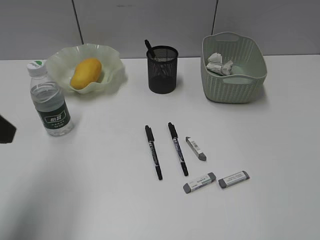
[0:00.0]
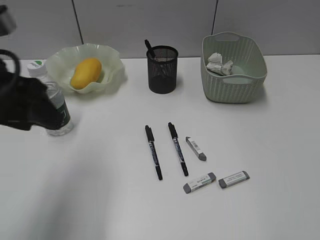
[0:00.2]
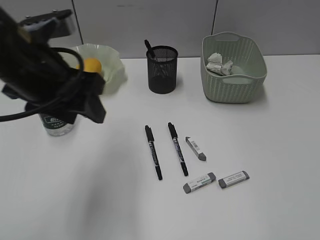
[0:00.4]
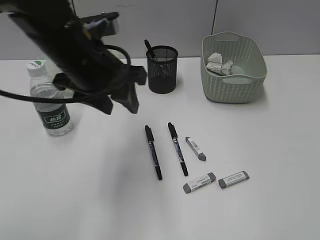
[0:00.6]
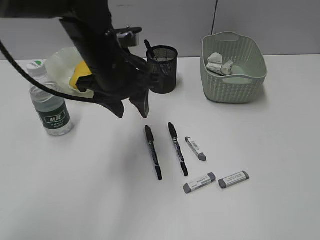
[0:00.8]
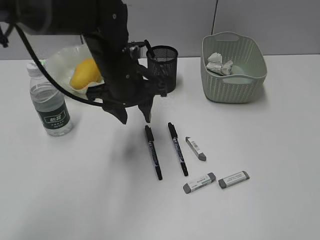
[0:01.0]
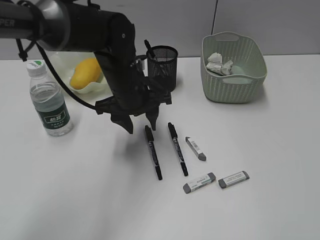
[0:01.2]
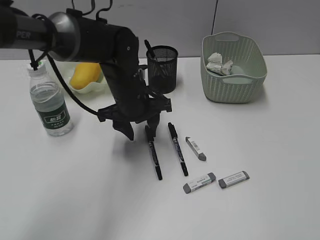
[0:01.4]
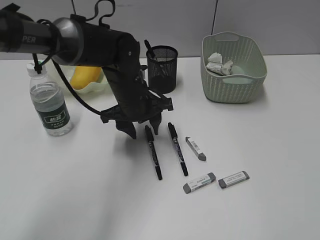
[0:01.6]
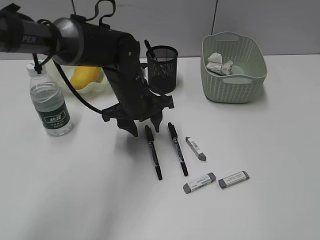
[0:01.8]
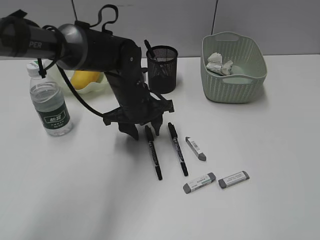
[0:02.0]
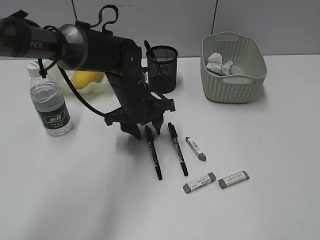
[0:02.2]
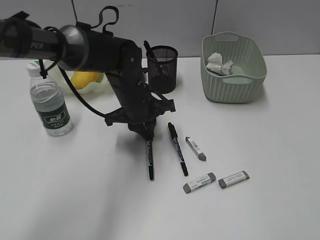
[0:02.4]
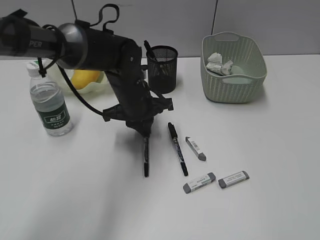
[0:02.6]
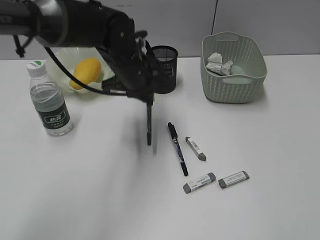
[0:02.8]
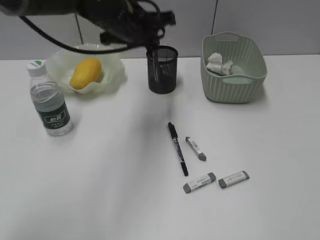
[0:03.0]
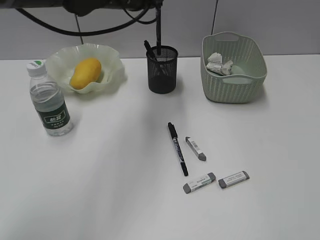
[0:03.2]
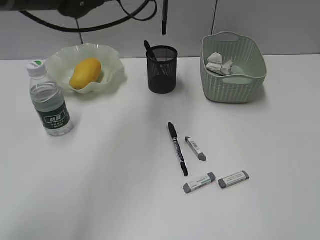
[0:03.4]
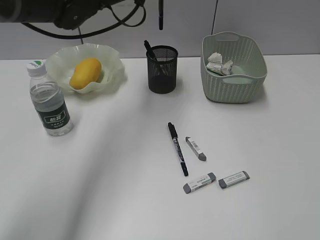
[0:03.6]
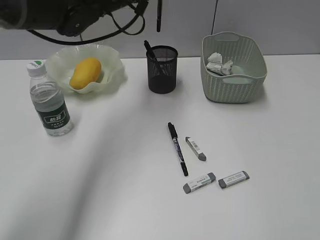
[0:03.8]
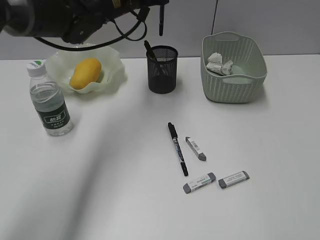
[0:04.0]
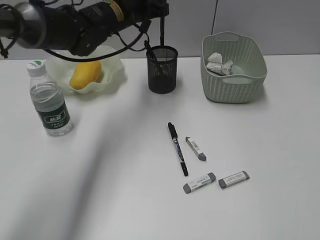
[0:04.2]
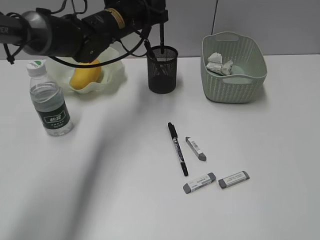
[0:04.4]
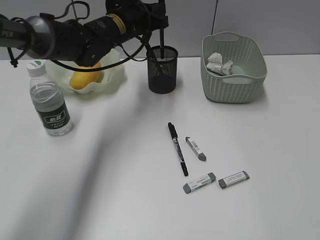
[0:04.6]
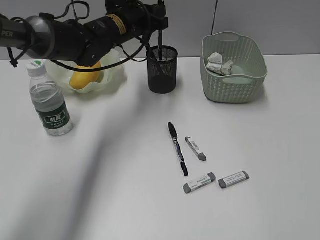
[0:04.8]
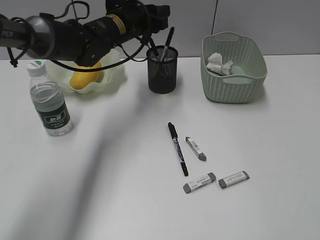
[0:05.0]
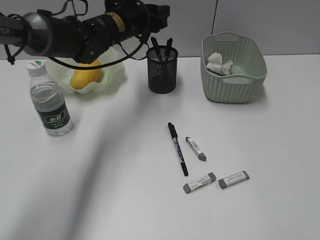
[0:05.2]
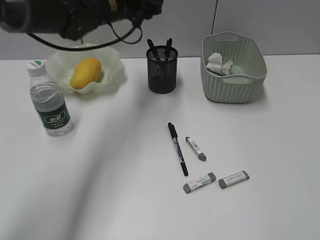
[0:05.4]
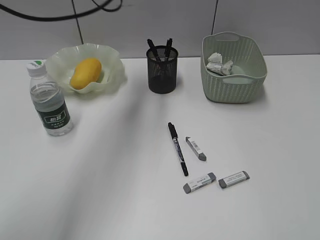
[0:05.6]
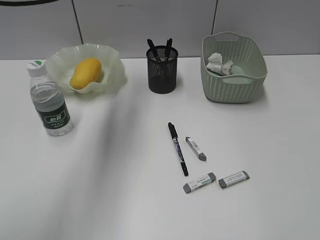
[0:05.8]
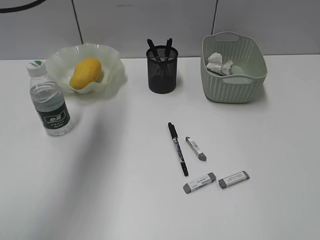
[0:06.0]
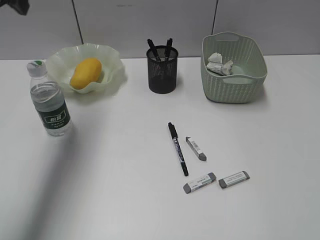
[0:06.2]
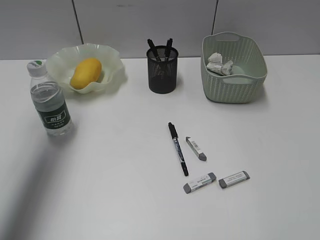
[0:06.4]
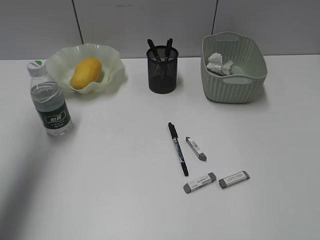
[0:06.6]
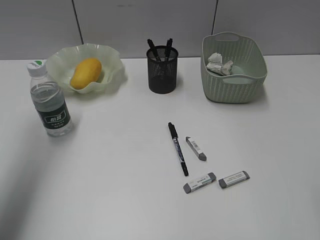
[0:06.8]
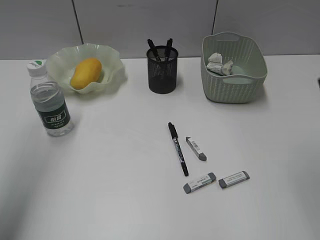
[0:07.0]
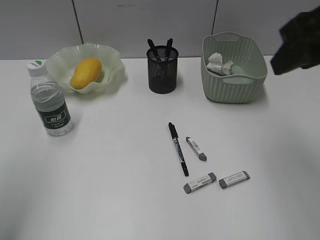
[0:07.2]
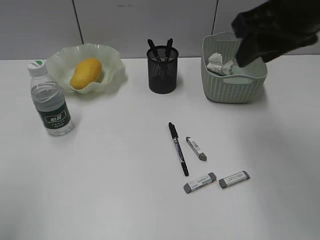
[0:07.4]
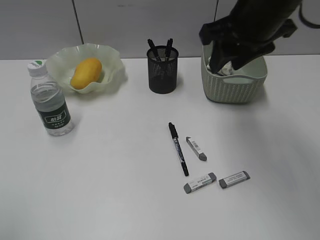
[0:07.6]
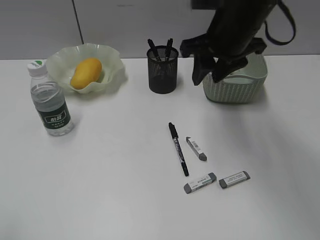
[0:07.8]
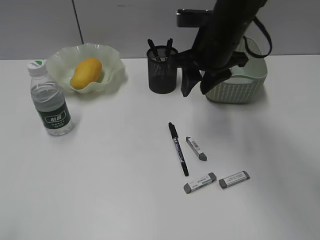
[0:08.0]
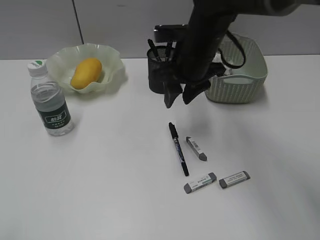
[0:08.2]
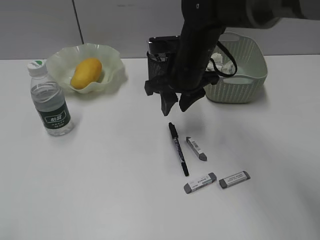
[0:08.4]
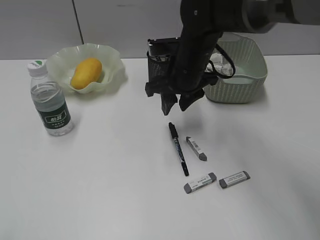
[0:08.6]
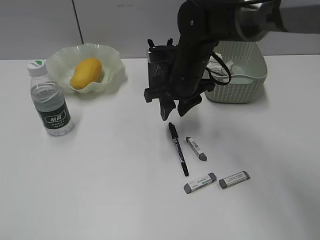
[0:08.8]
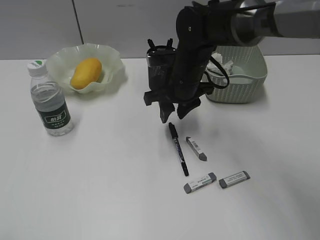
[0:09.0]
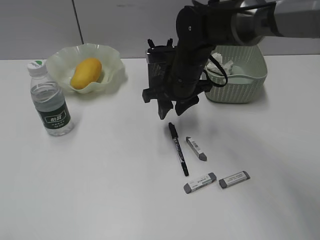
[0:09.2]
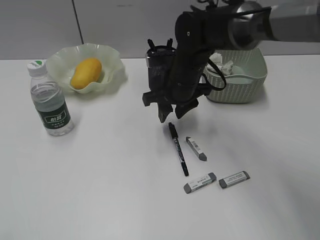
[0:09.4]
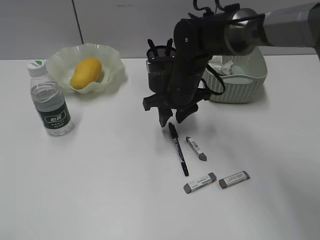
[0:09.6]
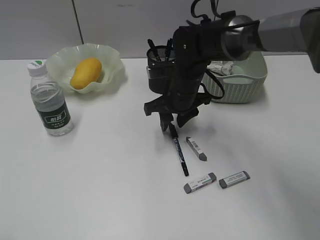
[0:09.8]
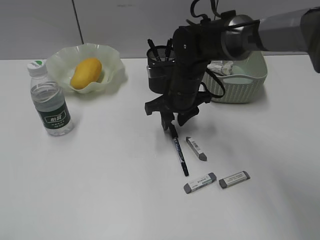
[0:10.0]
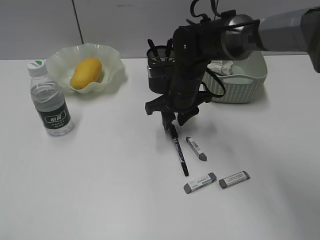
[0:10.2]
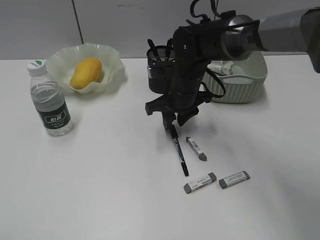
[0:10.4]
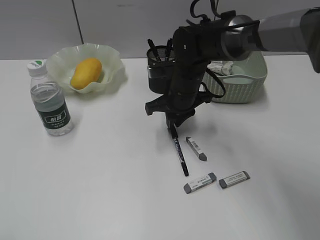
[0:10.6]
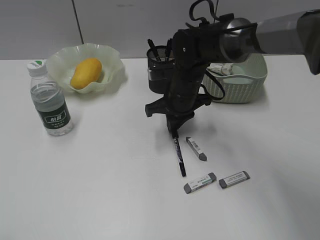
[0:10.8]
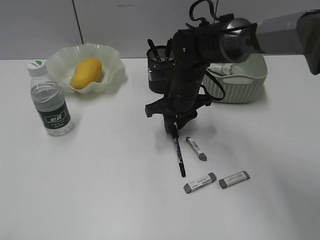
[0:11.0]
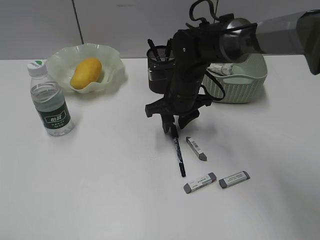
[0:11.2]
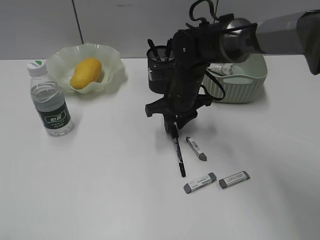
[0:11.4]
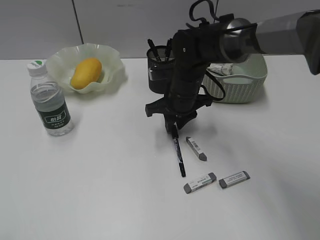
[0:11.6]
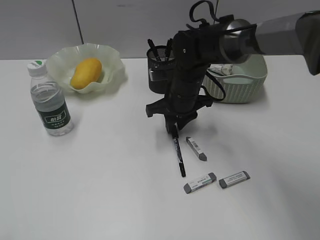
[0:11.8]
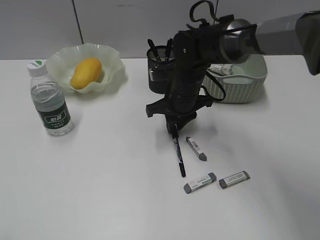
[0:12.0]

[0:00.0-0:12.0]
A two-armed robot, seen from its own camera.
Step, 0:00.0 to 0:02.4: Grasp the black pen with left gripper.
Step, 0:02.6 to 0:05.2: Place the black pen in pen holder with left gripper.
0:00.0 to 0:01.6: The left gripper shifts roughly 30 cm to the right, forward and downward.
0:01.6 to 0:03.0: The left gripper heads upward, covering approximately 15 cm, and closes.
0:03.0 to 0:04.4: The left gripper goes some 5 cm forward.
0:04.4 to 0:06.0: The left gripper shifts approximately 20 cm upward, to the left and backward, and opens.
0:06.0 to 0:07.6: The right gripper moves forward and to the left, roughly 35 cm. The left gripper heads backward, covering some 35 cm.
0:07.6 to 0:09.0: The right gripper shifts about 15 cm downward and to the left; the left gripper goes approximately 5 cm backward.
0:09.0 to 0:10.4: The grippers make only small movements.
0:10.4 to 0:12.0: The two grippers keep their place.

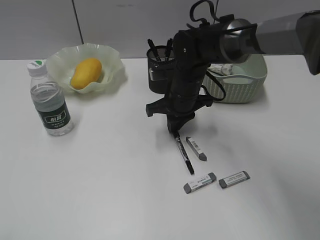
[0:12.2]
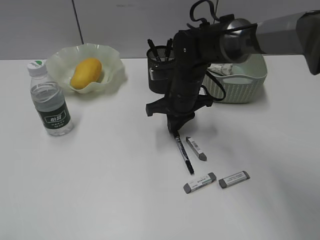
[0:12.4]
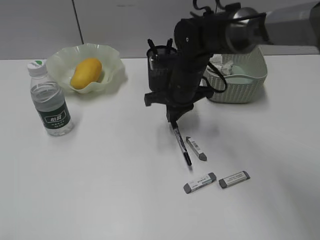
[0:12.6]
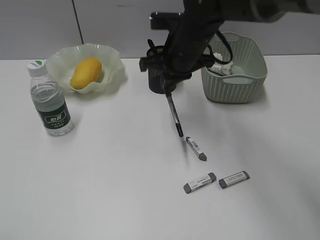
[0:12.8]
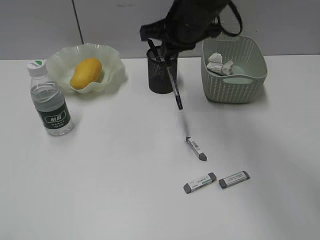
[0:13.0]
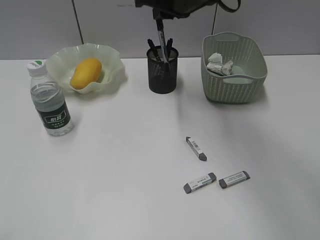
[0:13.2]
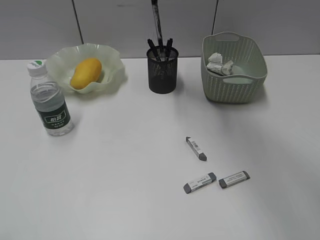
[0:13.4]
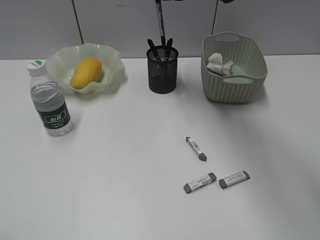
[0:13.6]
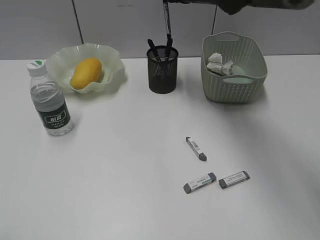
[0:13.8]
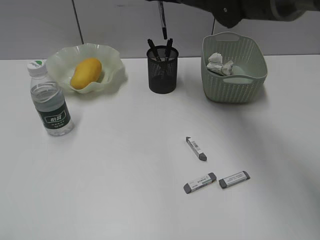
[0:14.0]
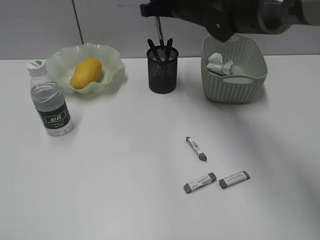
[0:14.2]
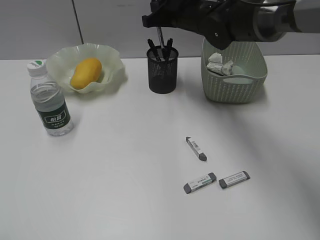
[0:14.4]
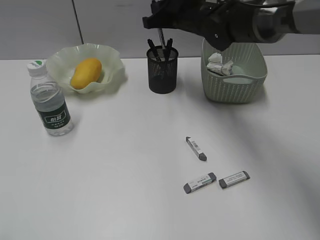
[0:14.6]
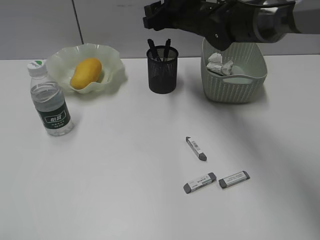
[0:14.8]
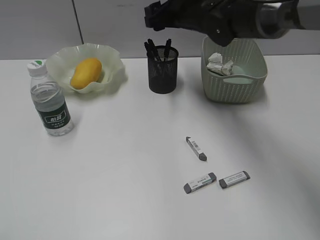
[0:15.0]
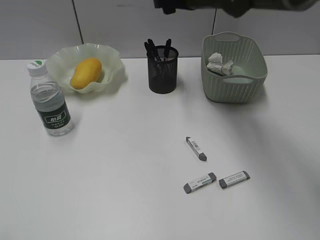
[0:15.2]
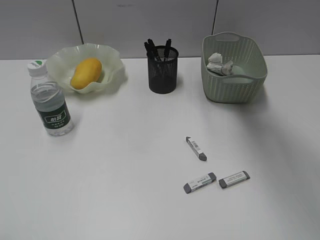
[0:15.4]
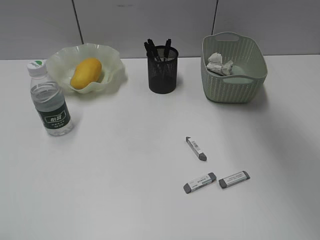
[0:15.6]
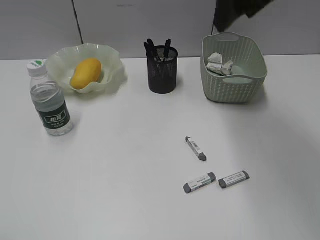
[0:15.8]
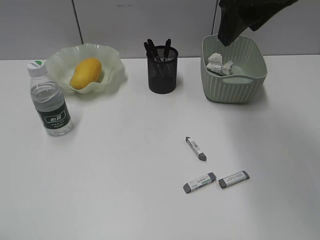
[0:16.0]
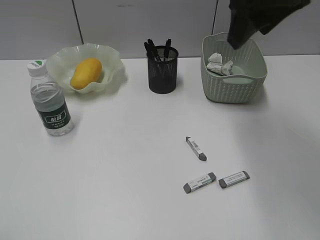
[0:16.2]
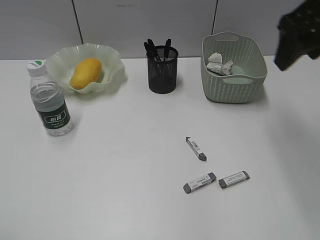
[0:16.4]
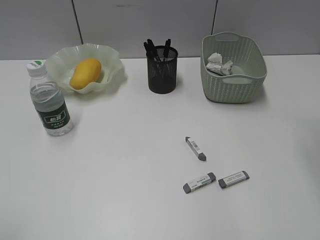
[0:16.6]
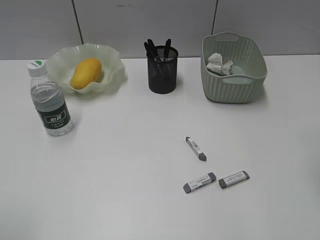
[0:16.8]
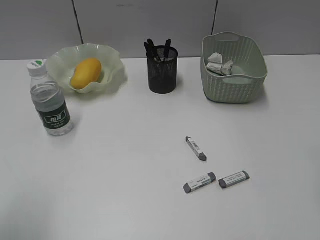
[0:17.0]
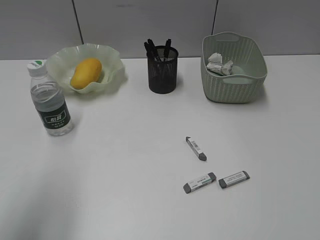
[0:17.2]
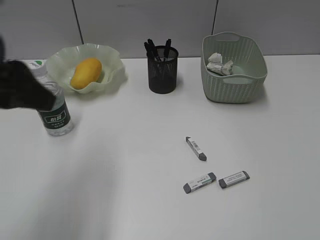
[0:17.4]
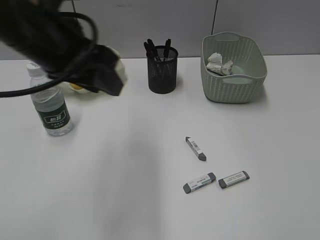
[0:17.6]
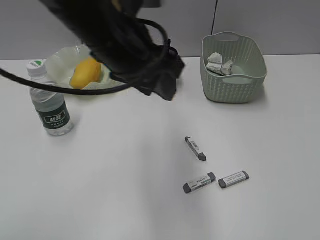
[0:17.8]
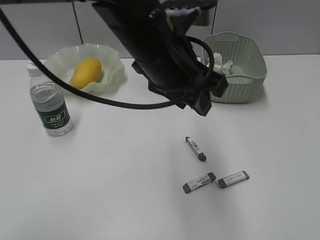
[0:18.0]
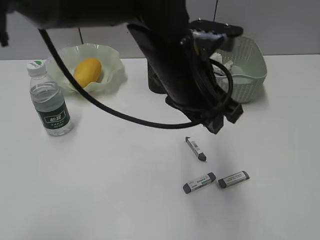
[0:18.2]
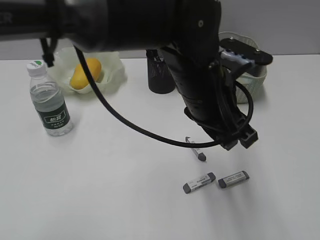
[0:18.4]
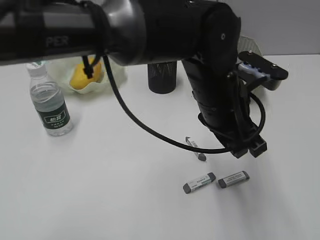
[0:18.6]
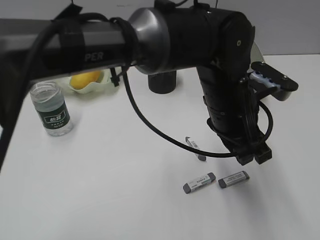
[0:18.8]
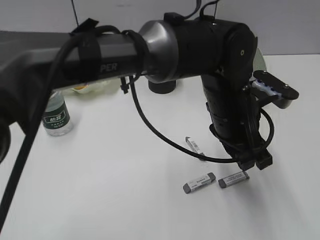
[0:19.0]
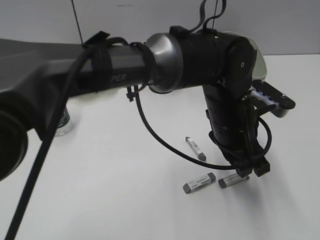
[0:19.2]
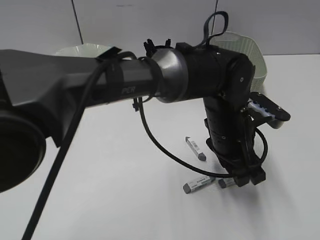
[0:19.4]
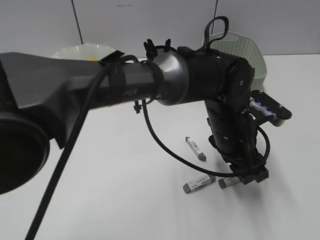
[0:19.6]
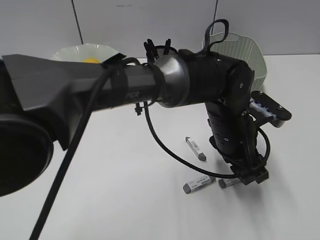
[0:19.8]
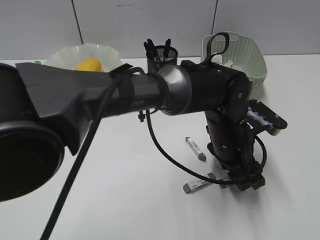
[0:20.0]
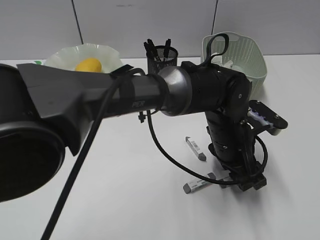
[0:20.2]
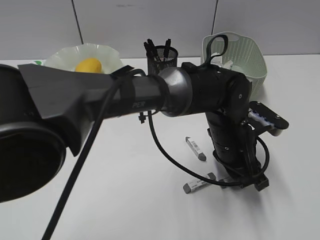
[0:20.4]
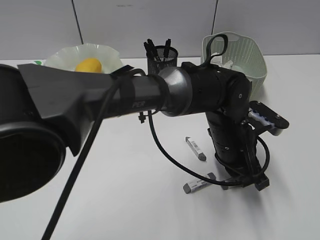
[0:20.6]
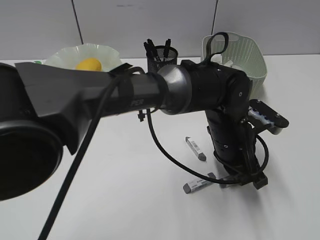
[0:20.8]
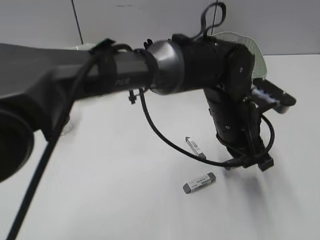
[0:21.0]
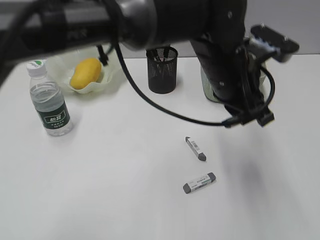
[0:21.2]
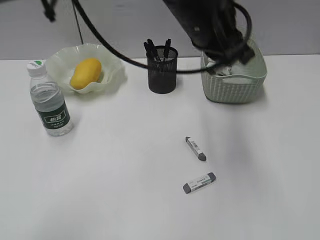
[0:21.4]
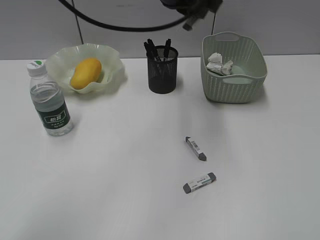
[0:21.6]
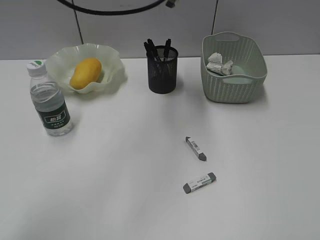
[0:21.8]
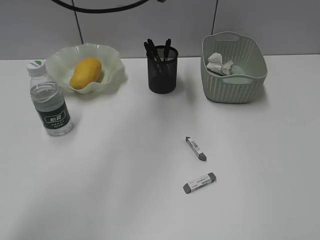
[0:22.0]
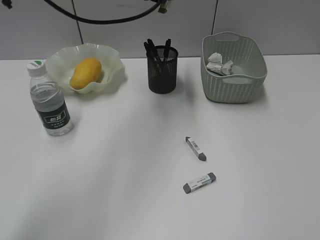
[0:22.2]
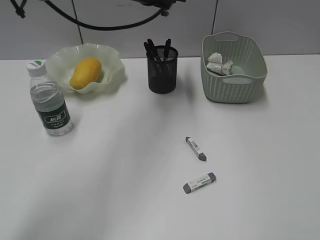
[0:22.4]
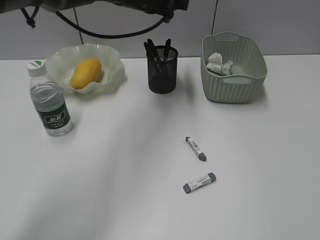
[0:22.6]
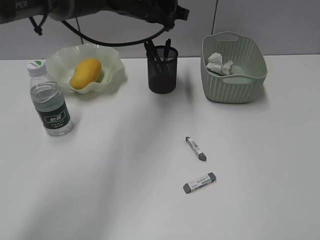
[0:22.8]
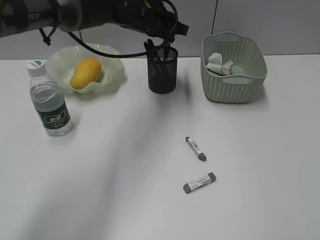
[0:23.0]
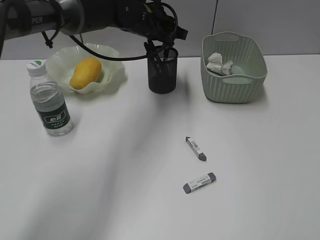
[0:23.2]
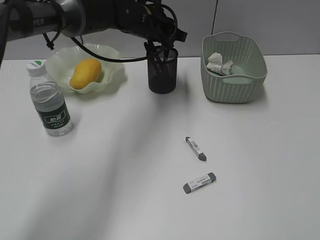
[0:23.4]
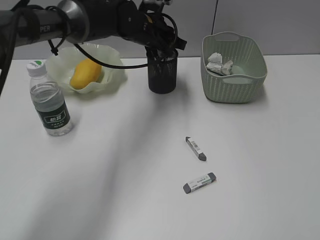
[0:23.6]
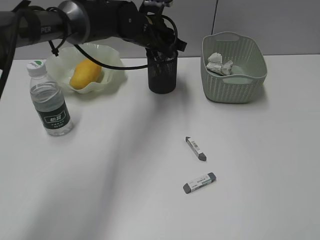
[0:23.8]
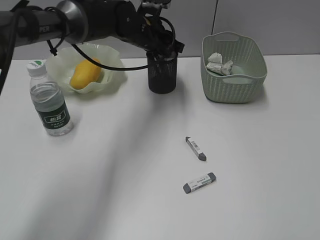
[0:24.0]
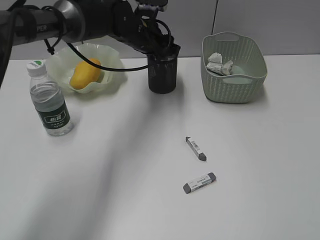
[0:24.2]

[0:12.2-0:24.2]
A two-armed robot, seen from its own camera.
Step, 0:12.6 to 0:14.8: Place the black pen in pen holder with right gripper.
Step, 0:15.0 to 0:20.6: Grasp the eraser with left gripper.
0:12.2 to 0:13.8: The right gripper shifts about 15 cm upward.
0:13.8 to 0:15.2: The right gripper opens up.
0:15.2 to 0:16.6: The right gripper heads backward and to the right, covering about 25 cm.
0:16.6 to 0:18.2: The left gripper goes about 40 cm to the right and forward. Meanwhile the right gripper shifts roughly 20 cm backward.
0:18.2 to 0:19.8: The left gripper is displaced downward and to the right by roughly 15 cm.
0:19.8 to 0:21.2: The left gripper goes roughly 10 cm upward, and closes up.
0:21.2 to 0:22.6: The left gripper heads forward and to the left, covering about 20 cm.
0:22.6 to 0:24.2: The left gripper moves downward, approximately 10 cm, and opens.
